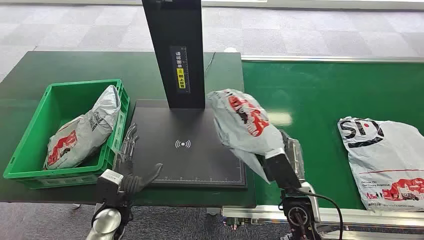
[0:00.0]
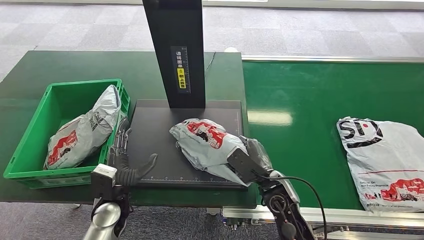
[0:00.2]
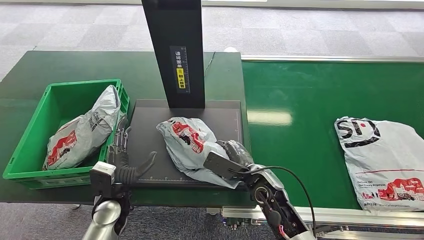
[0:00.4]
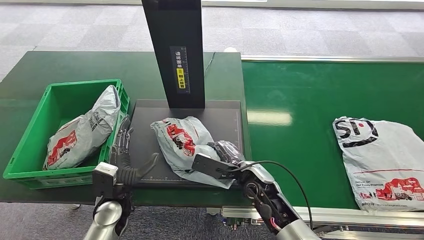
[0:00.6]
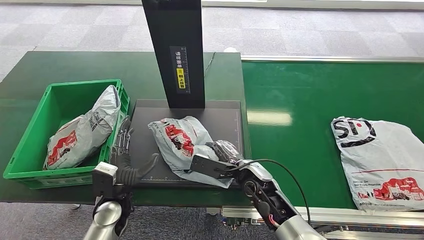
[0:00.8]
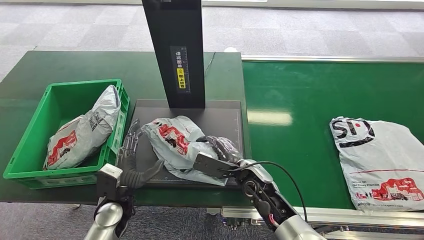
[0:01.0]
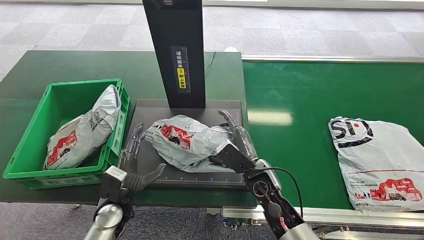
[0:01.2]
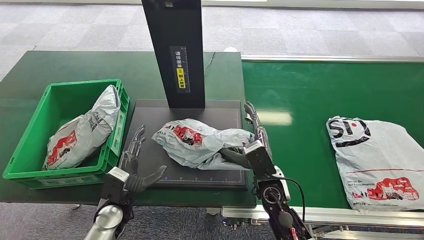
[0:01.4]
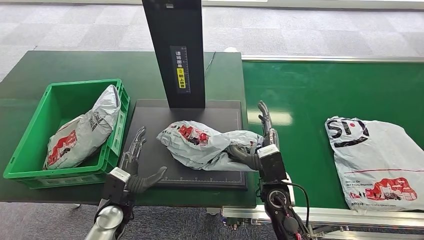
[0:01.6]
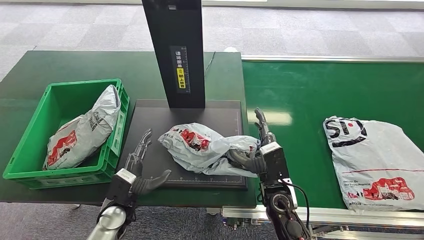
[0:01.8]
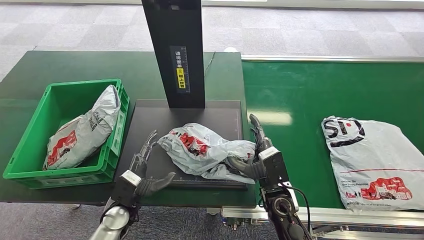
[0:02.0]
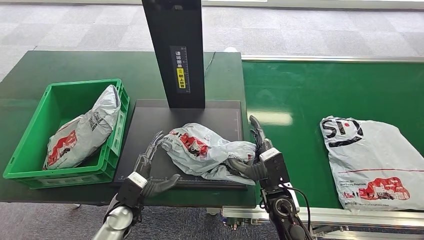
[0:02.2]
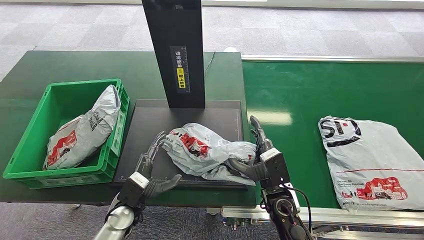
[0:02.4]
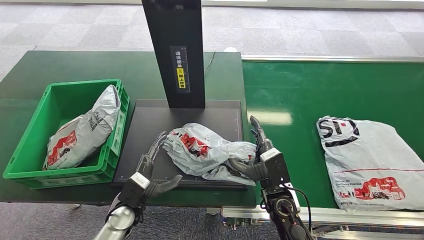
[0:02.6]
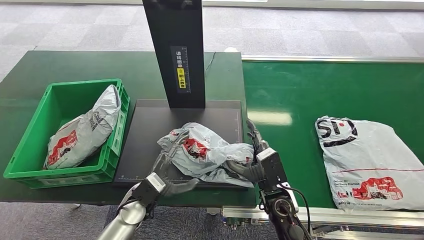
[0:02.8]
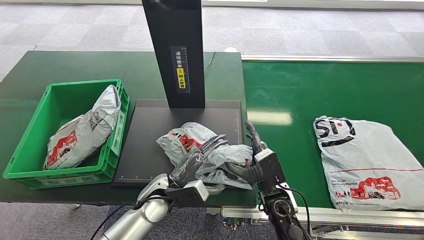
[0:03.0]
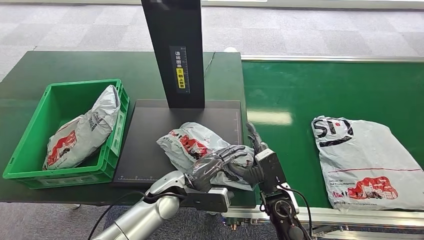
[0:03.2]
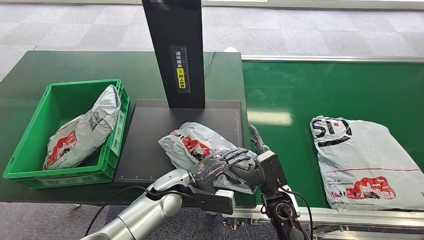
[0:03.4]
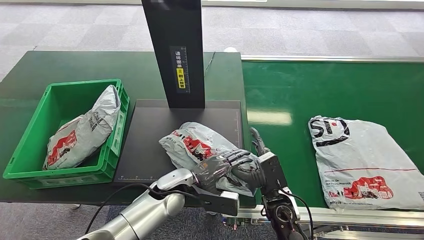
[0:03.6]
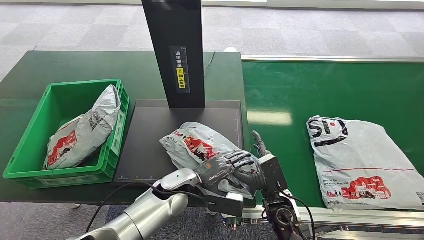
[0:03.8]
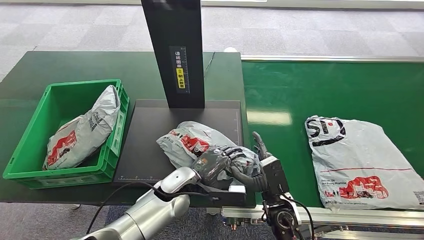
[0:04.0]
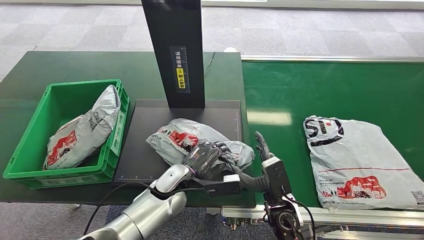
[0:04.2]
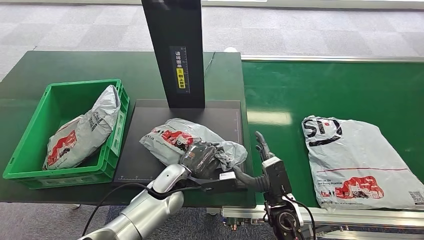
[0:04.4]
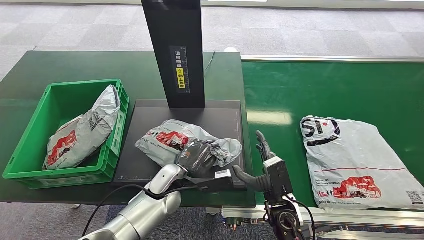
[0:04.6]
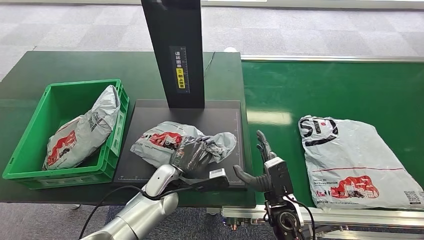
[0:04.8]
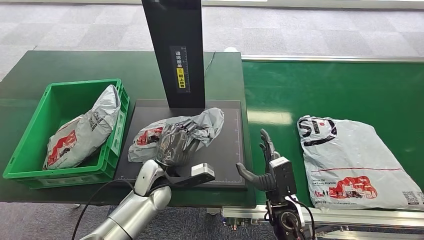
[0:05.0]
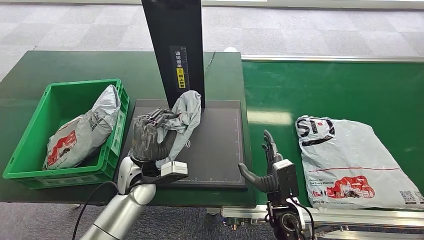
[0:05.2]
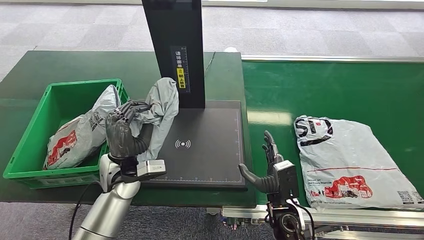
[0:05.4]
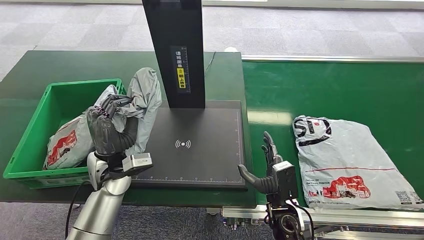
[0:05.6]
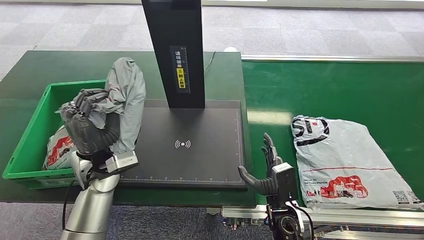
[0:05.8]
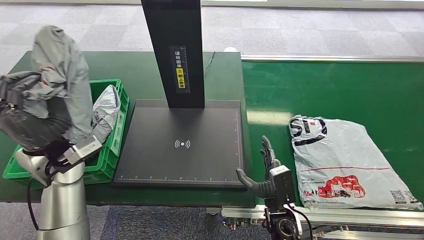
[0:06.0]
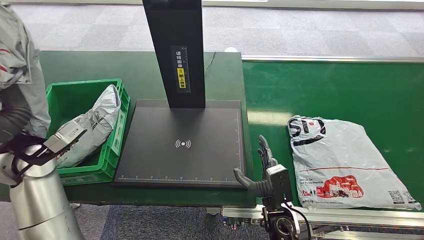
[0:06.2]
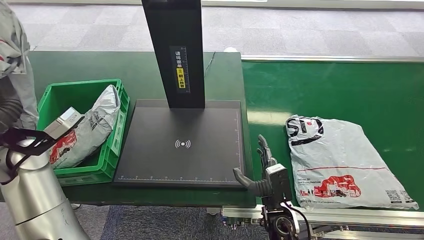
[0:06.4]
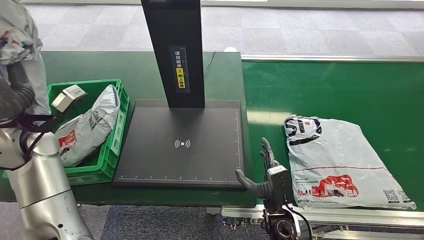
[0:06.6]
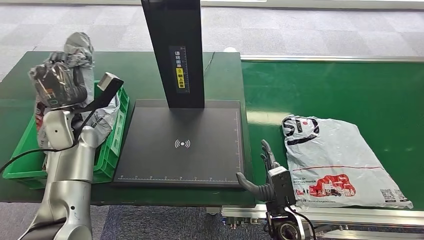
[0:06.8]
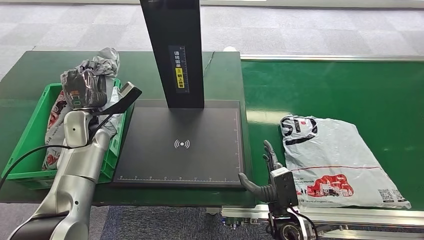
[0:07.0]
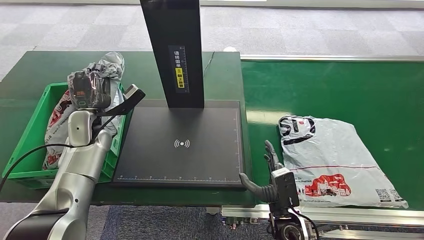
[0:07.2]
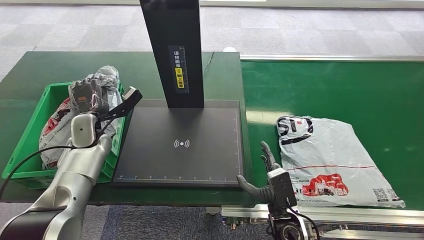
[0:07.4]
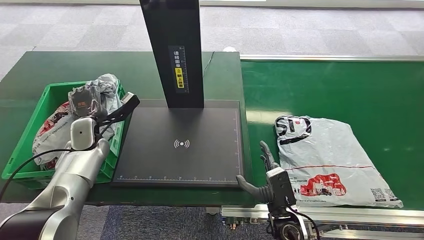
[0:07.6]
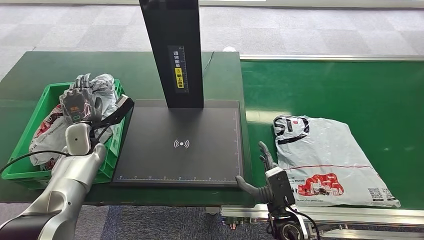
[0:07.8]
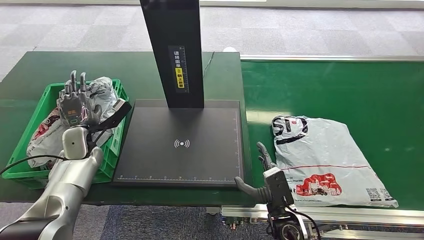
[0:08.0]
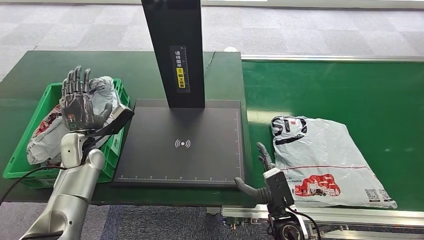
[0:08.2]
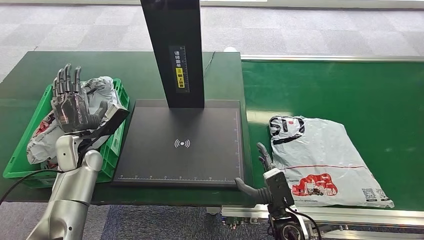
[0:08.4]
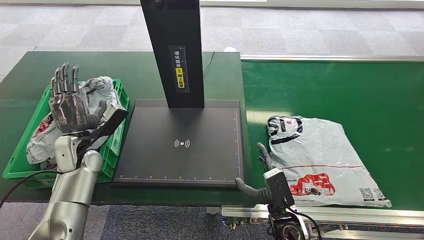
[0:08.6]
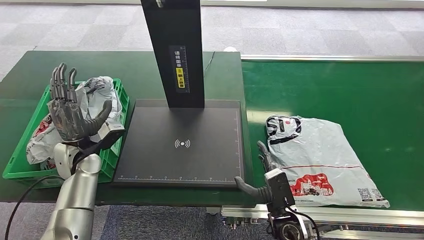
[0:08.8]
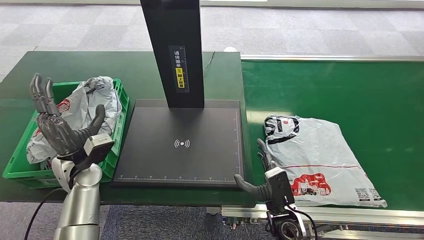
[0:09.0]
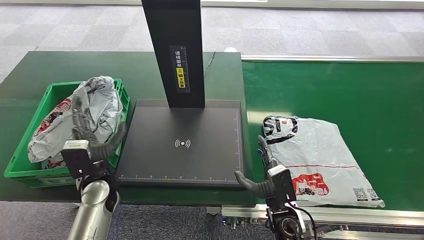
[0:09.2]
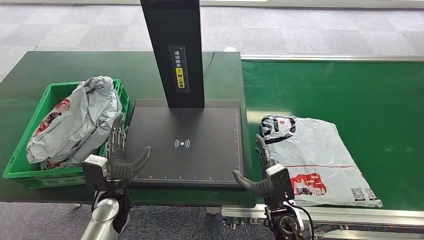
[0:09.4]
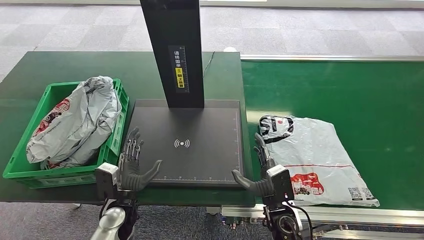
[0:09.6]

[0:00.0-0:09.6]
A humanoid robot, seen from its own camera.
0:01.6 to 0:03.2: The left hand heads to the right, covering roughly 15 cm.
0:08.0 to 0:09.6: The left hand goes approximately 20 cm backward, to the right and downward.
